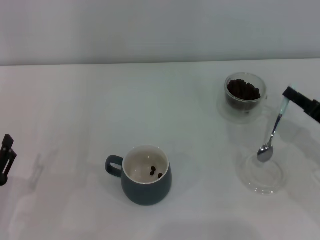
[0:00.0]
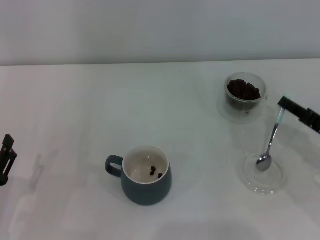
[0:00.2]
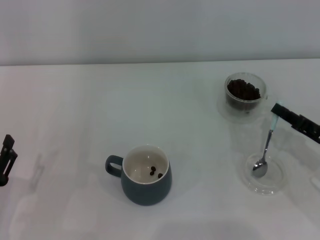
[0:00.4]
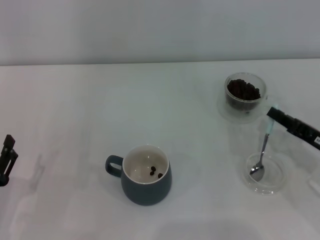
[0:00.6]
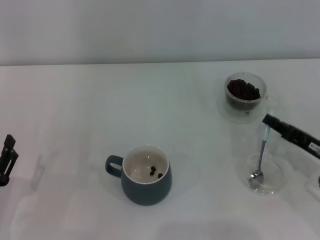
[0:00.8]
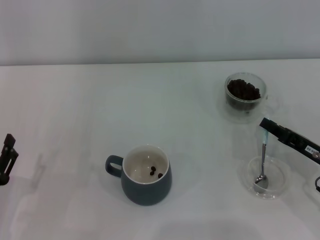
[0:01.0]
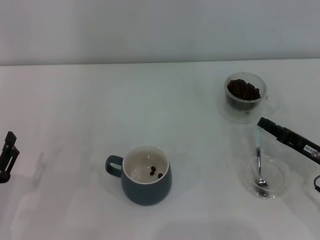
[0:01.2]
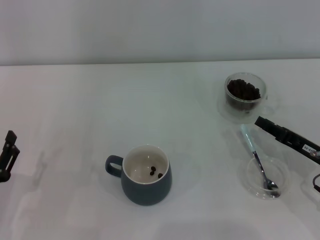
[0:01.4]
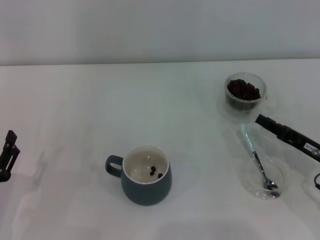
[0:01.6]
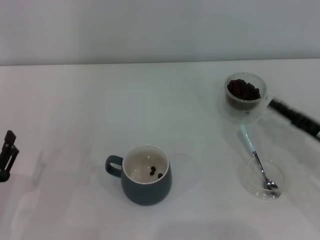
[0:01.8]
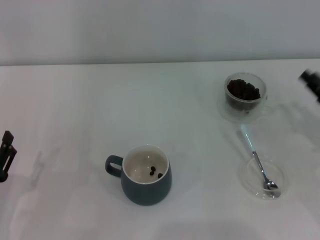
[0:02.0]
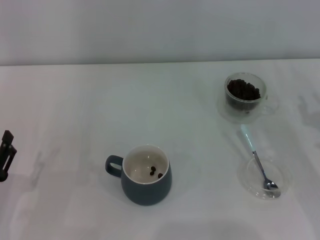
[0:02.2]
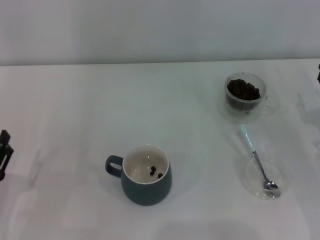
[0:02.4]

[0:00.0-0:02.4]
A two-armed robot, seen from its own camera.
Task of the whole recording: Use a blue spoon to take out the coffee beans from the glass and pour them into the gray cup.
Step, 0:00.0 to 0:01.6: Place the spoon back in its original place with the right gripper.
0:00.0 to 0:01.2: The grippers move only a little.

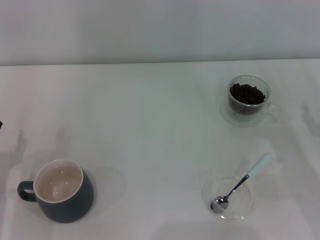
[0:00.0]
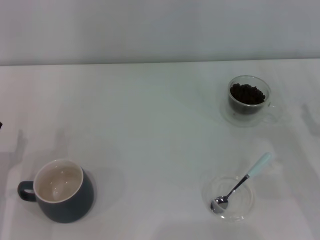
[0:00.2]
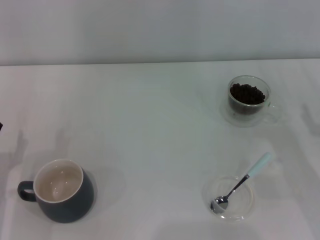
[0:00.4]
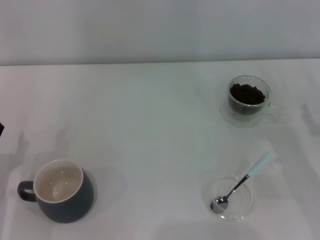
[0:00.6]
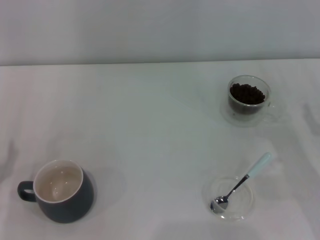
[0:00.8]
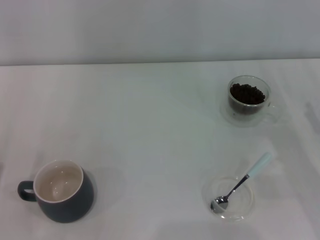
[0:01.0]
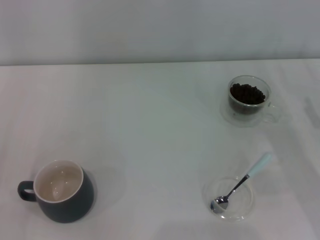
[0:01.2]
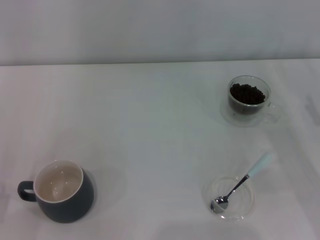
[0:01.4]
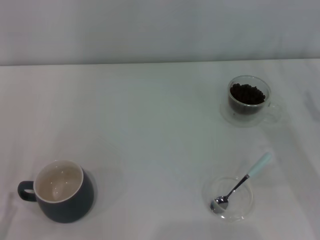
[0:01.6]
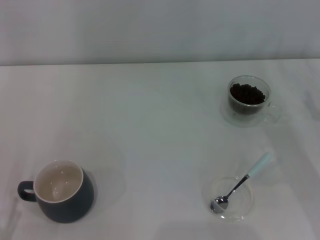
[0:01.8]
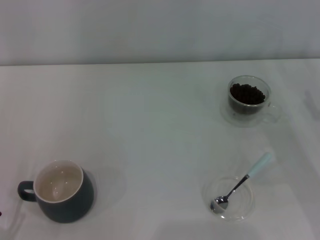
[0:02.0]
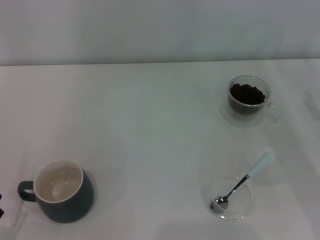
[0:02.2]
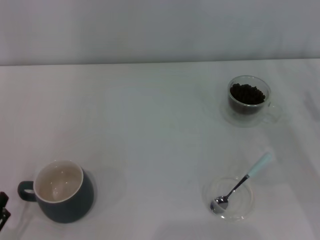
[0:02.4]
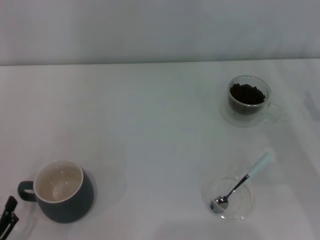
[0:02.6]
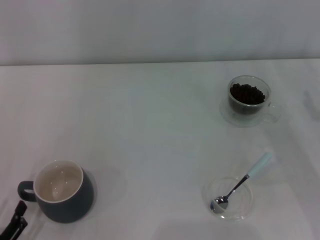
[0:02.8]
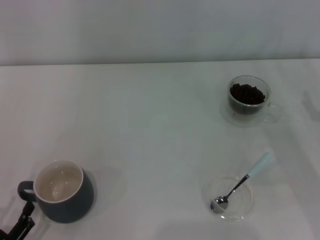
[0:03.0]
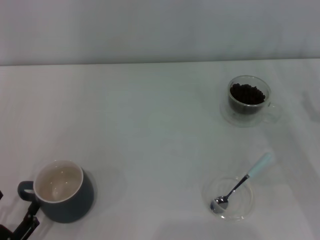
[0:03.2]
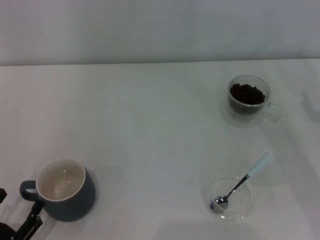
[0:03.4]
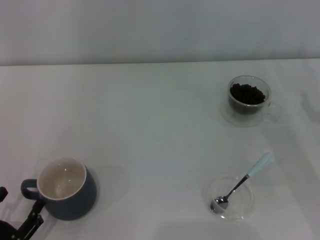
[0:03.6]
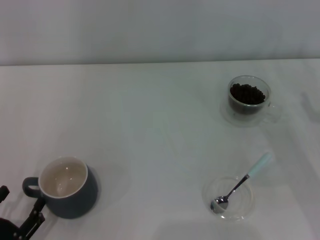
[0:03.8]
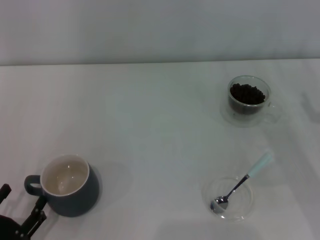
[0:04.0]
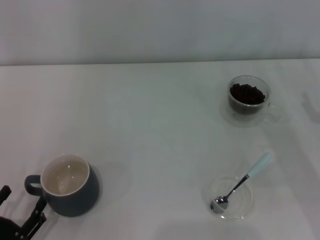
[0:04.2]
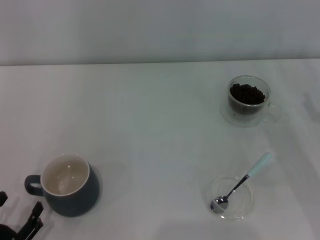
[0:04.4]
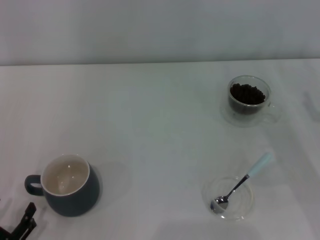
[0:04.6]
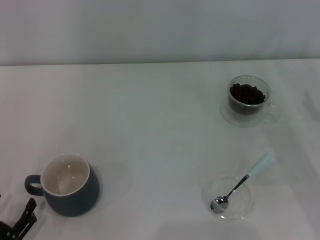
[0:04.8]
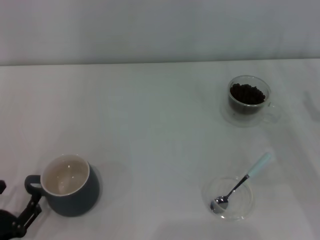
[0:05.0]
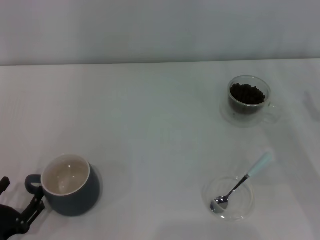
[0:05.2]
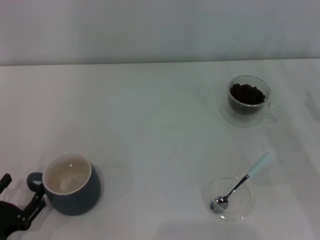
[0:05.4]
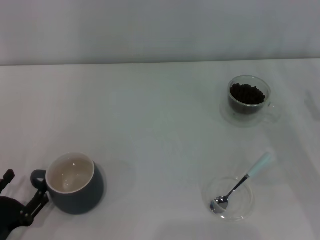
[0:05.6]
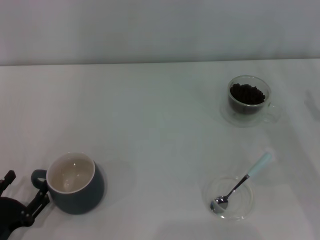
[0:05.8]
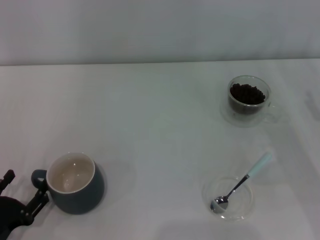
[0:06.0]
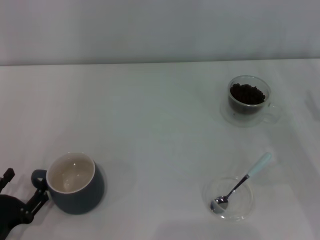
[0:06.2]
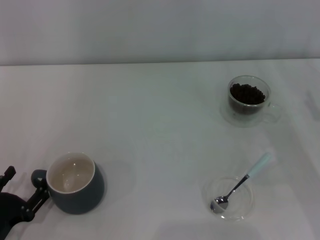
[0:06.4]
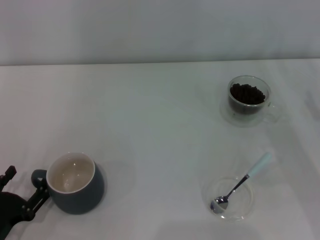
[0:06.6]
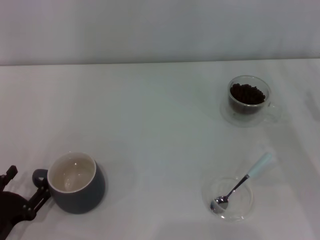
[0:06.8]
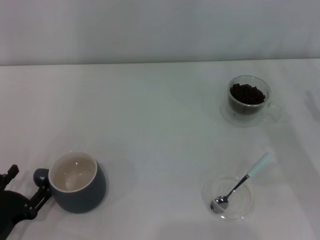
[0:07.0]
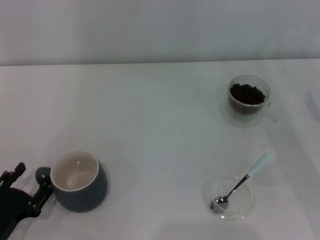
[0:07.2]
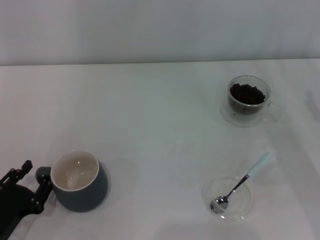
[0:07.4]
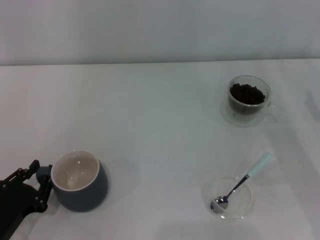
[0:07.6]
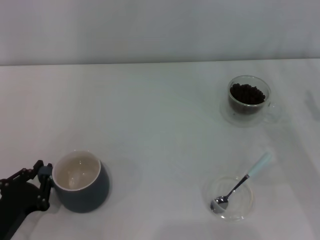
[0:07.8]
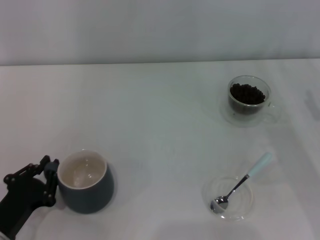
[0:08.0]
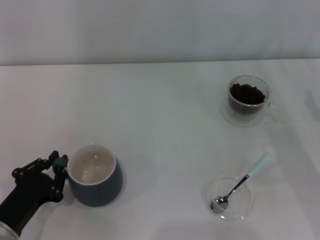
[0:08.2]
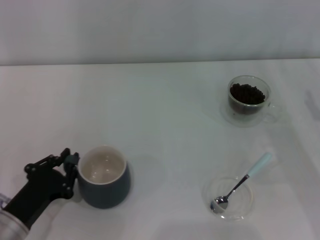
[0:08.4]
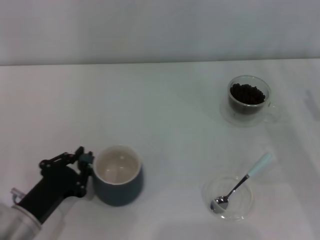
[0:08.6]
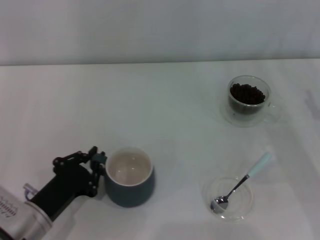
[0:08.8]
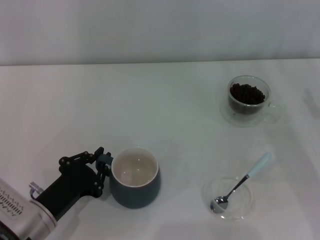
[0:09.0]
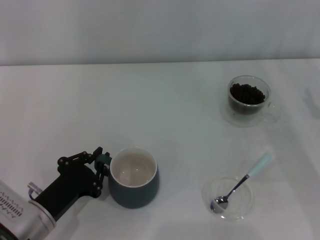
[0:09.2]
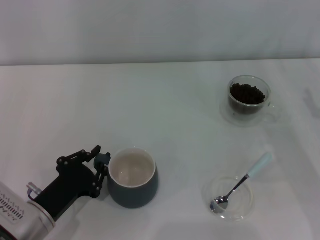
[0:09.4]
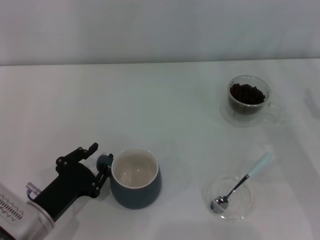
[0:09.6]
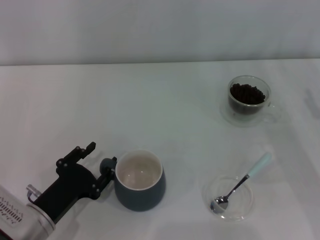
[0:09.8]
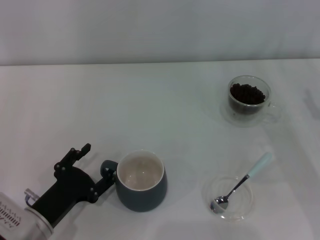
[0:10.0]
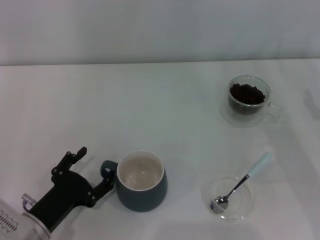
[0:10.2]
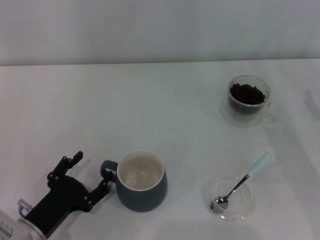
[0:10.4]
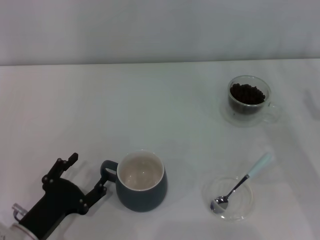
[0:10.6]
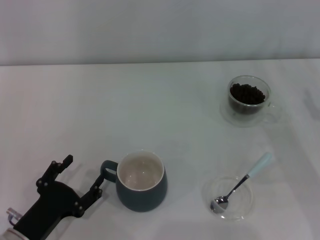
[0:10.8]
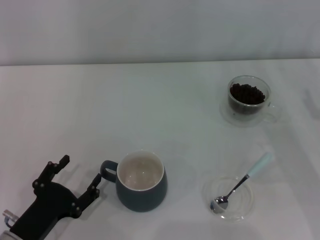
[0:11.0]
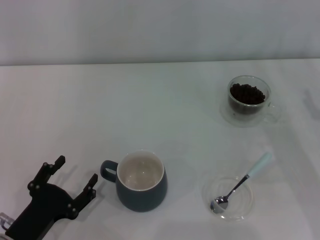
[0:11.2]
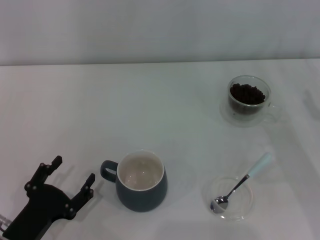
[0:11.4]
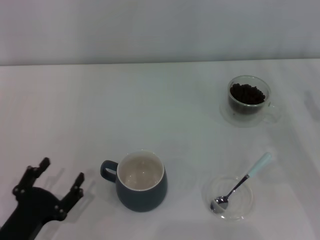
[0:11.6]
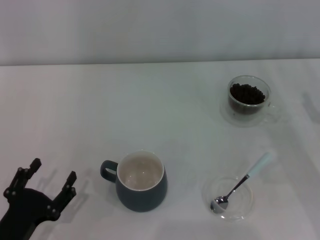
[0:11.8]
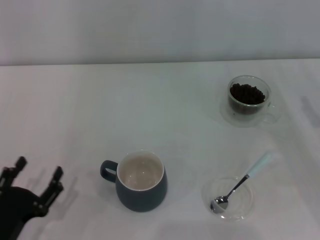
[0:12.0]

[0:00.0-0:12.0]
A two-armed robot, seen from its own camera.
Task of the whole recording: Use a blue spoon to take out the coffee beans from the glass and pour them into the gray cup.
Step, 0:00.0 to 0:11.4: Move the cup to the center of view with the left gripper.
0:01.6 to 0:04.4: The grippers make only small movements.
0:04.4 to 0:06.0: The grippers make only small movements.
0:06.0 to 0:07.6: The left gripper closes up.
0:07.6 to 0:09.0: The left gripper moves to the right, approximately 5 cm, and closes its fingers.
0:09.0 to 0:10.4: The left gripper opens its fingers.
0:10.4 to 0:12.0: The left gripper changes place by roughly 5 cm.

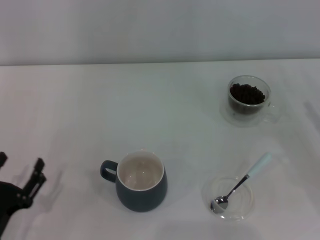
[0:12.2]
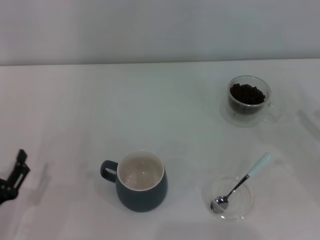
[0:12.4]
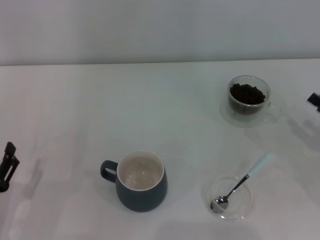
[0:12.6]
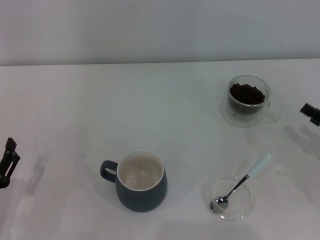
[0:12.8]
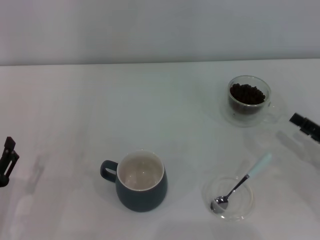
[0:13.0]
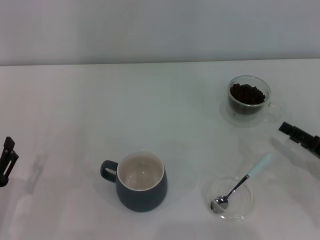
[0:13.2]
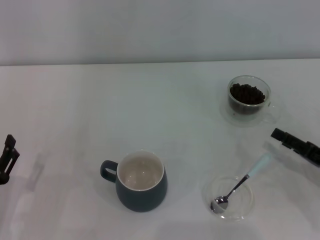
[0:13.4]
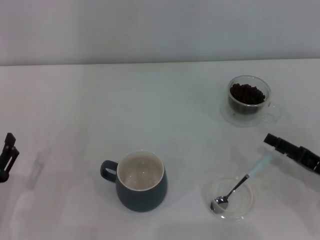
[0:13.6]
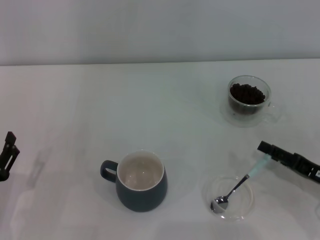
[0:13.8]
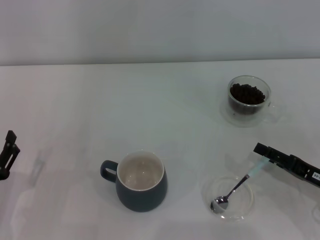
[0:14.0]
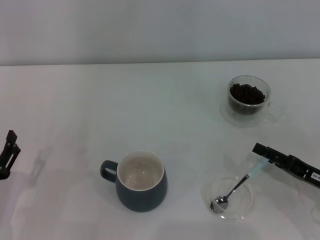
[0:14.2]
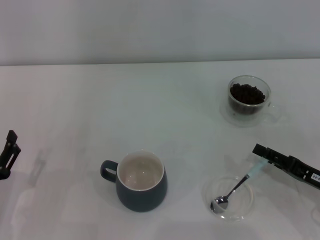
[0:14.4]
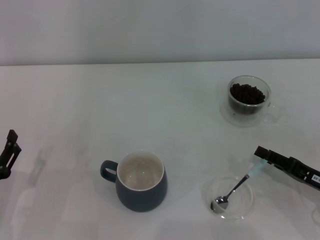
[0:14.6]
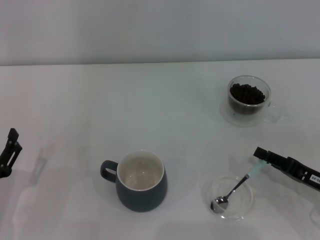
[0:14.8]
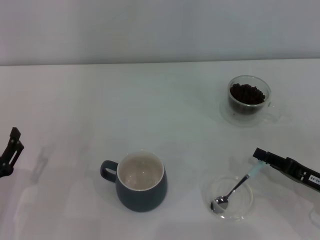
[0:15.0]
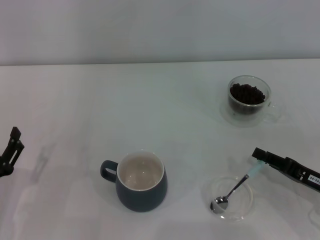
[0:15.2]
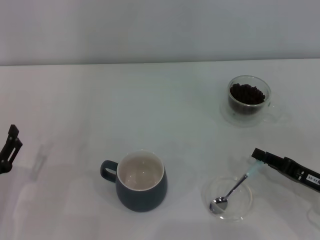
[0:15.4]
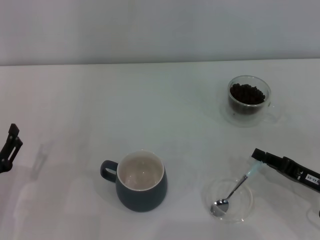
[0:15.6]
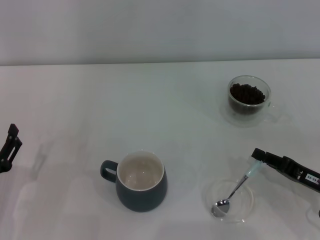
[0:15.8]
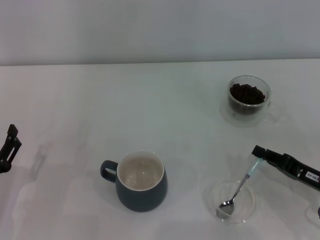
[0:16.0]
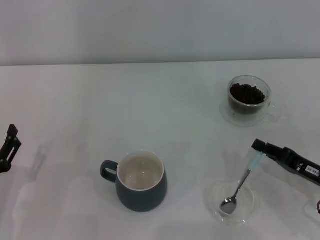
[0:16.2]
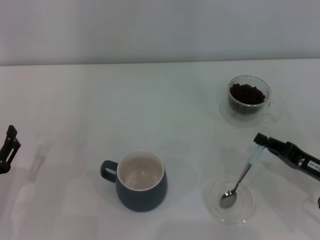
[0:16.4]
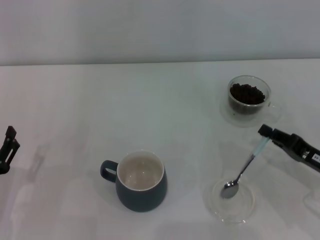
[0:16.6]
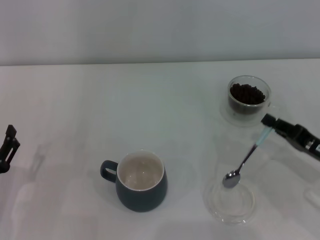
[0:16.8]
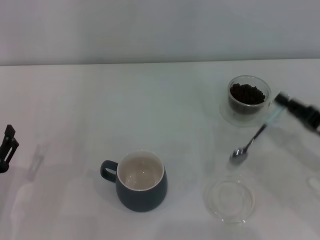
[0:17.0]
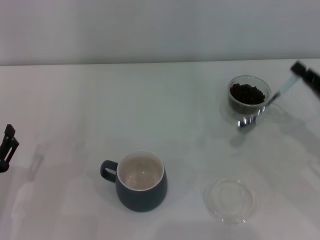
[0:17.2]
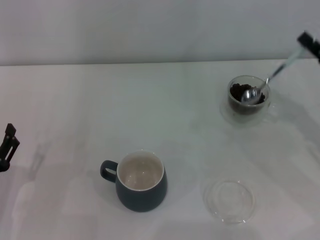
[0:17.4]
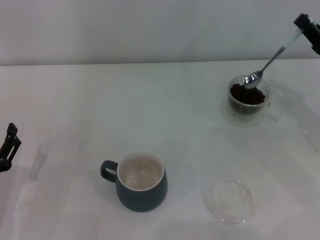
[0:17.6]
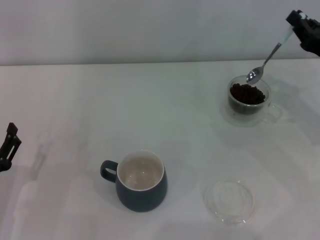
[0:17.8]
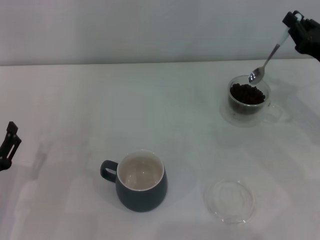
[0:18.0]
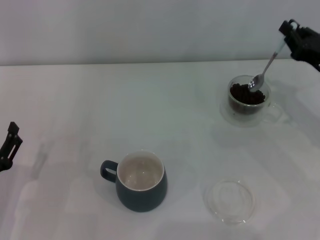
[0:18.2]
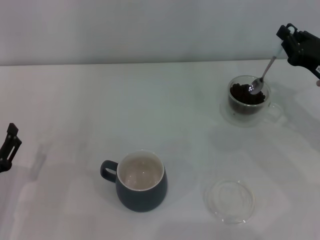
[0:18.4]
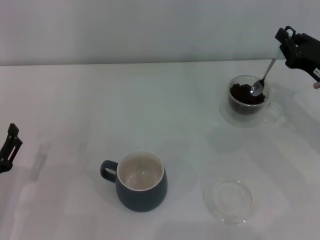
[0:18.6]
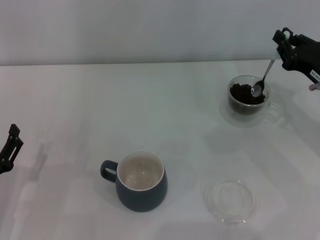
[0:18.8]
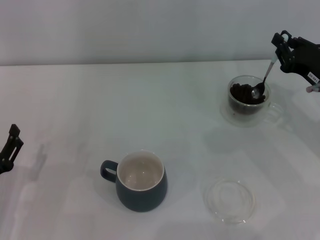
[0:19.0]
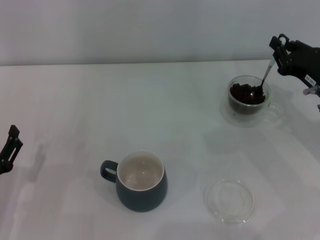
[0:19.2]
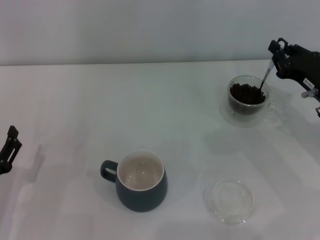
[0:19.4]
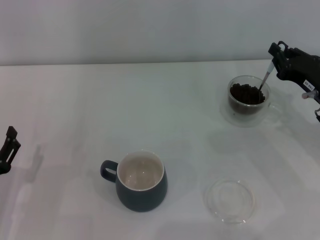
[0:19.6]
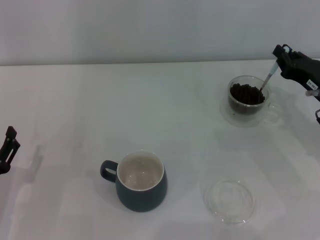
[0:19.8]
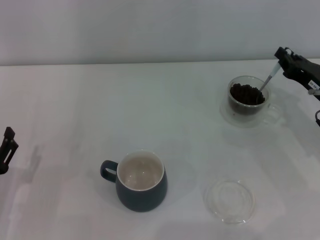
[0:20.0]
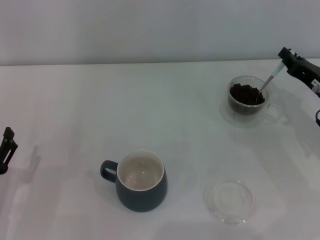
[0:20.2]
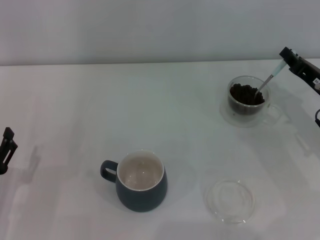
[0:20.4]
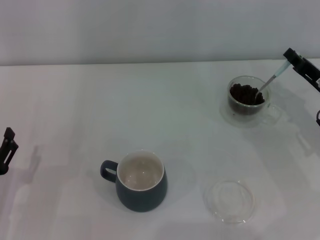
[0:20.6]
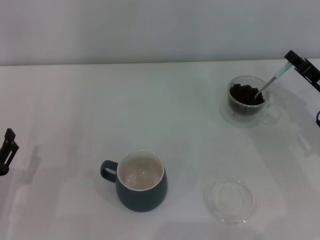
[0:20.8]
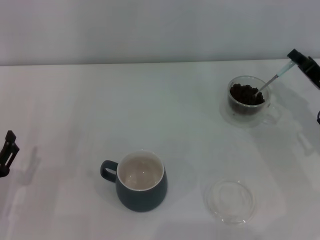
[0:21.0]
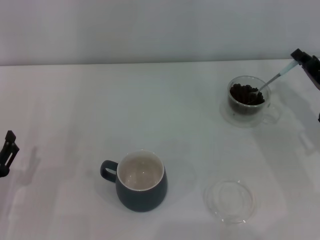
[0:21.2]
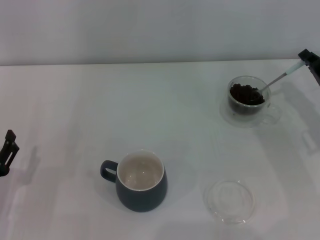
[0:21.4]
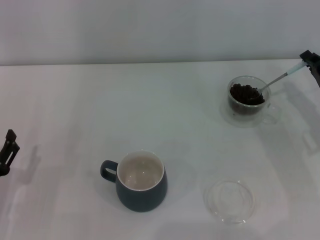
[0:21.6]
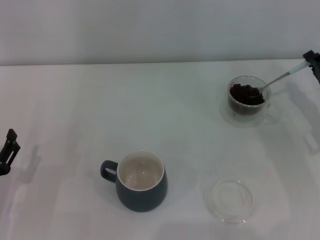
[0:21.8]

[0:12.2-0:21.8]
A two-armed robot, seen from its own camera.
Task of the whole recording: Use a blue spoon to take out the coffee beans from the glass and pour them into the gray cup.
Step, 0:12.2 to 0:16.6: Pick up the spoon with the right gripper.
0:12.2 to 0:13.8: The right gripper ends up about 5 cm from where it was.
0:13.8 to 0:15.4: The right gripper closes.
0:15.4 to 0:17.0: The right gripper shifts by approximately 5 cm.
0:17.0 to 0:18.6: The right gripper heads forward, covering about 10 cm.
